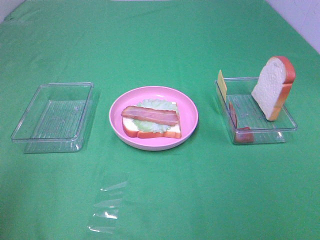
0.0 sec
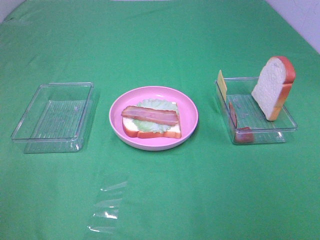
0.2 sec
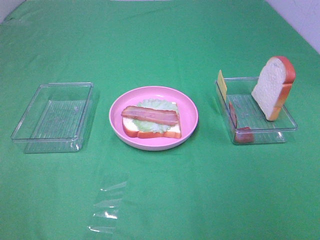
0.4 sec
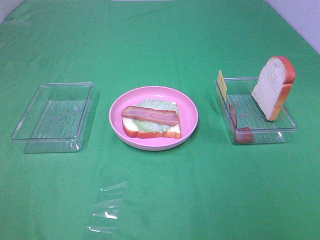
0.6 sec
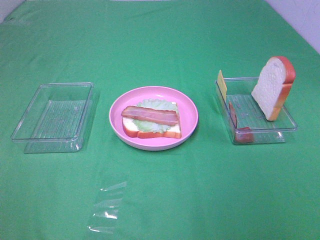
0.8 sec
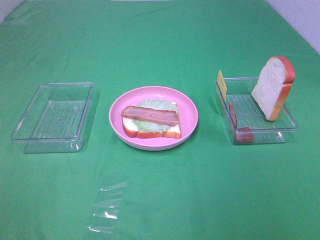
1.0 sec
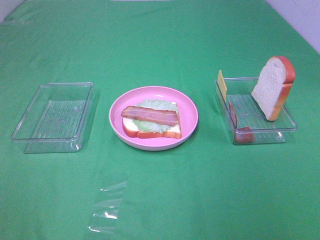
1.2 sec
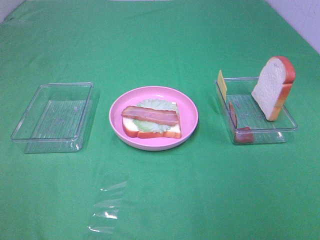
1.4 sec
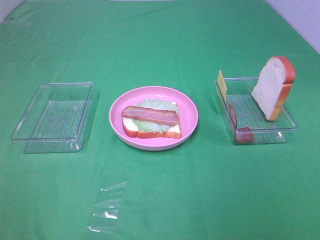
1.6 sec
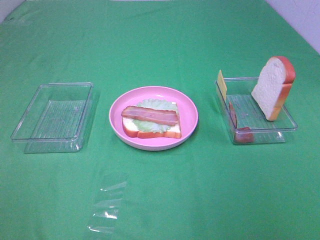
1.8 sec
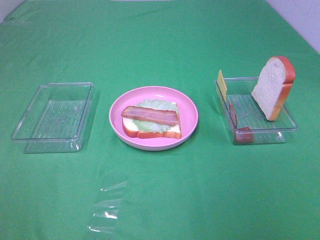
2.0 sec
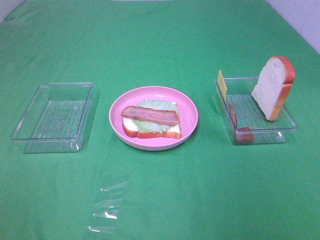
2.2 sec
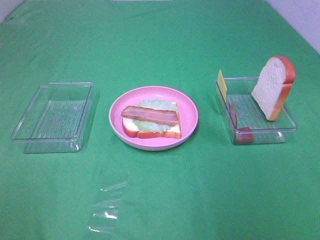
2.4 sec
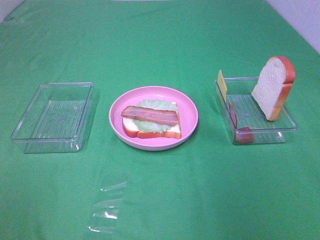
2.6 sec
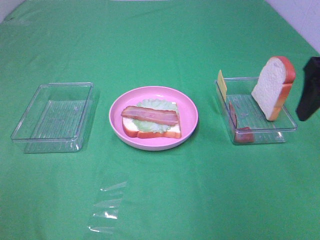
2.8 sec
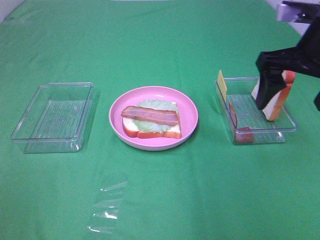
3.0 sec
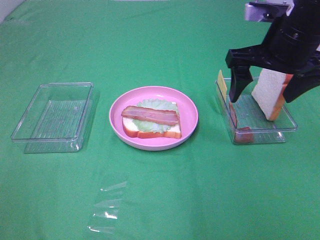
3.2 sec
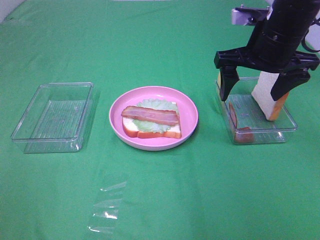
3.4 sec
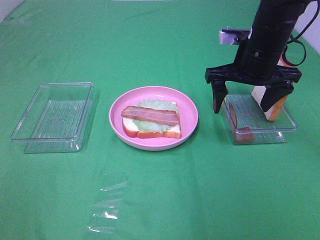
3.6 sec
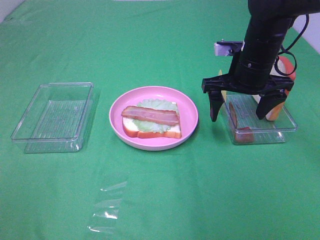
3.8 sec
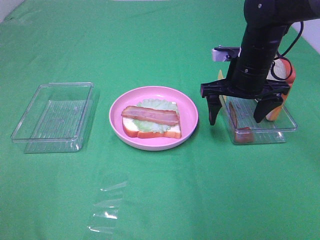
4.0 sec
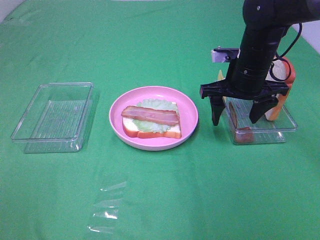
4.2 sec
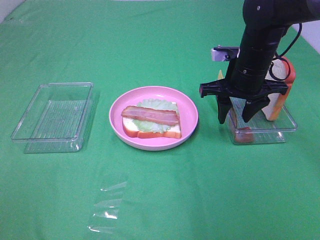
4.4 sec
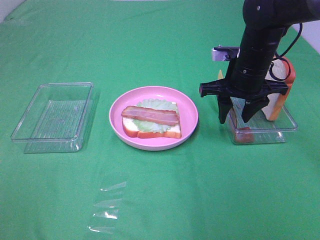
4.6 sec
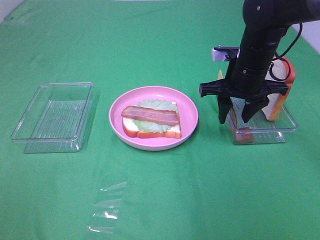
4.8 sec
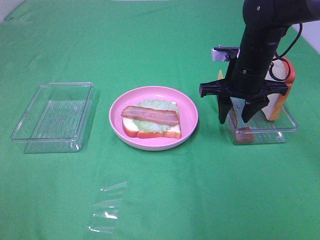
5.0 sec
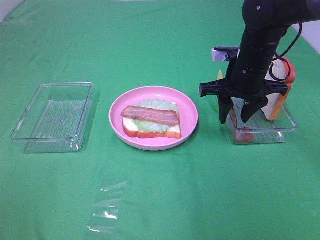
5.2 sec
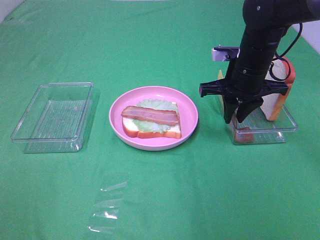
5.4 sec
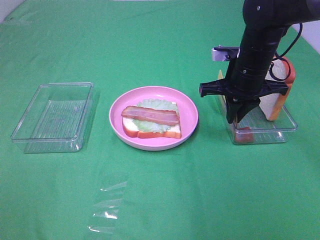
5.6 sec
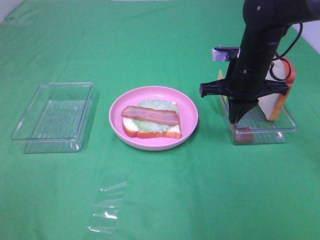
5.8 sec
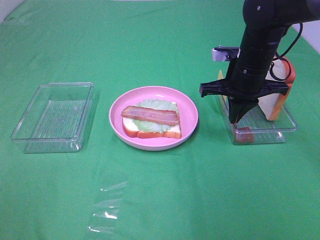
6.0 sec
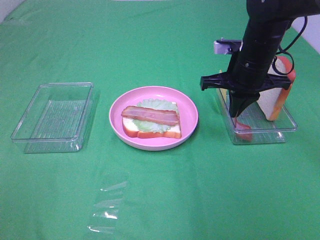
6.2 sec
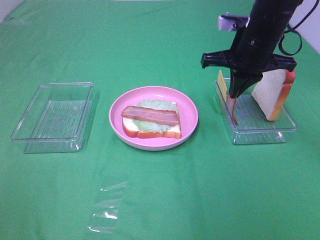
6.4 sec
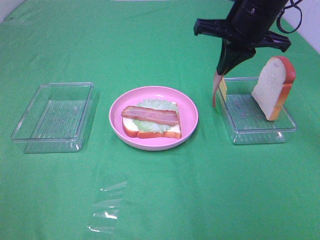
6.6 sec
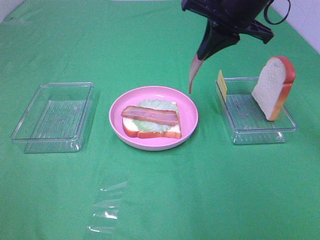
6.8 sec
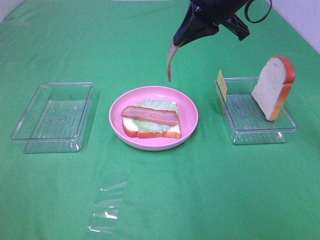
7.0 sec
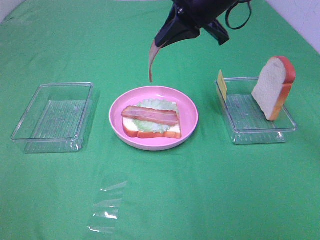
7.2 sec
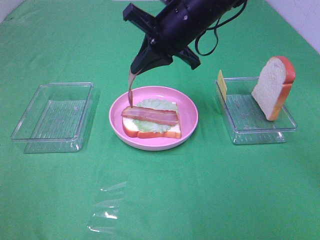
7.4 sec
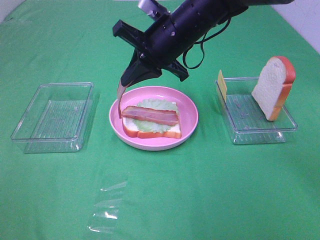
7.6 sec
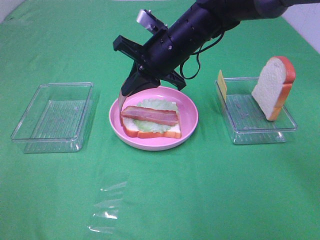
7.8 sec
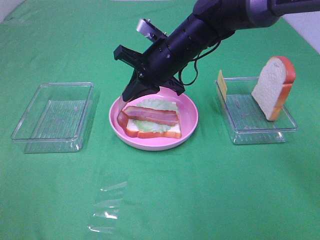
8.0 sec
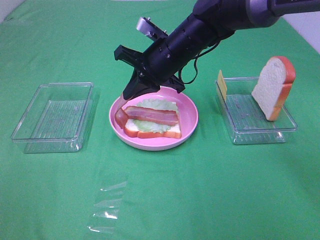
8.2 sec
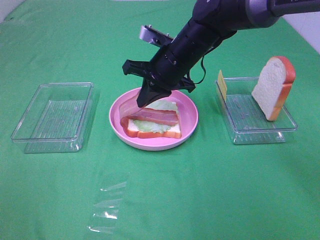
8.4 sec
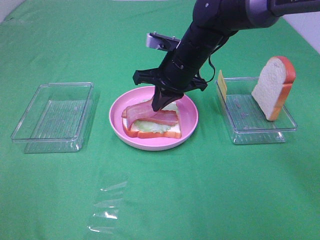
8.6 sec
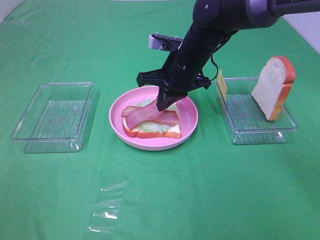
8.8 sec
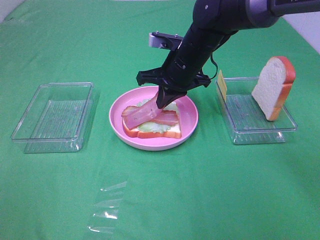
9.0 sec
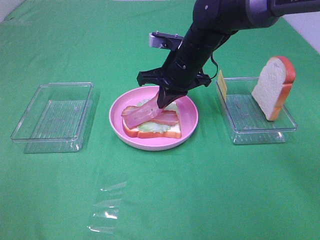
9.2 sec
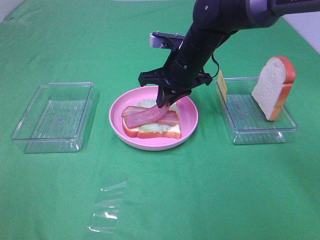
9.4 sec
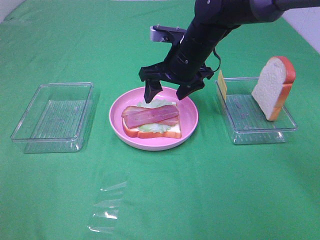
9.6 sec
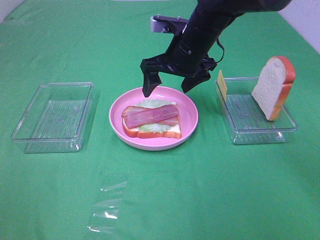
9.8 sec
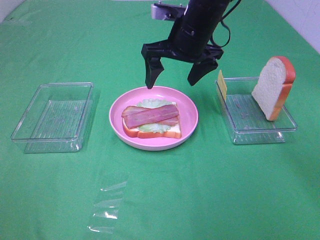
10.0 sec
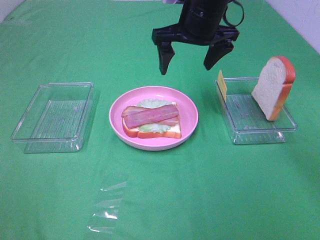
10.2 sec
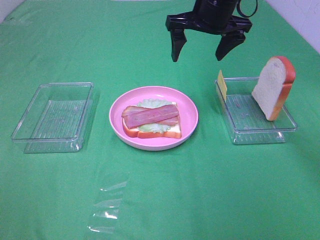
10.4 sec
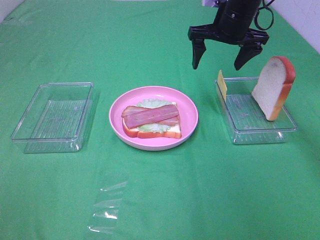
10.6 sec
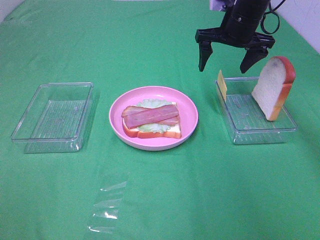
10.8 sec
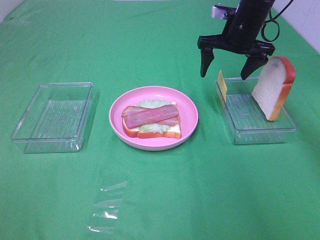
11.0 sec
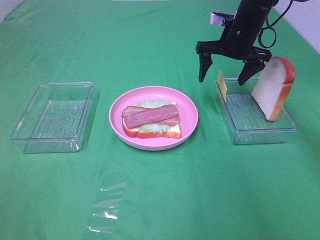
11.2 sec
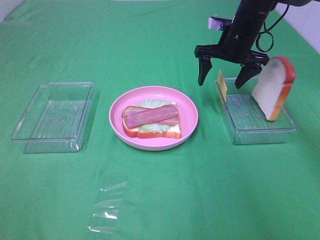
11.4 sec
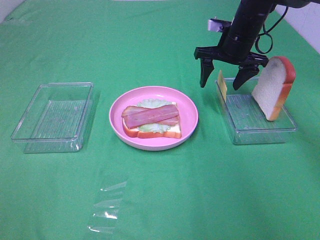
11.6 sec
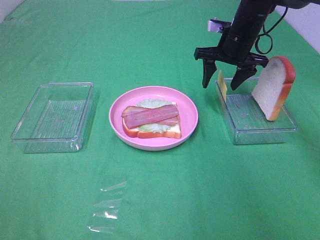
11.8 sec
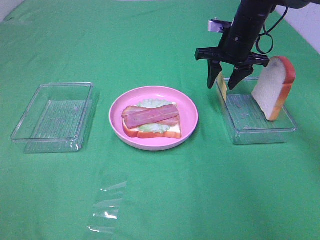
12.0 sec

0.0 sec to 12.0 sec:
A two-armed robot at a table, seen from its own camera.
Task of the whole recording: Make sandwiches.
Step, 0.0 sec to 5.8 sec: Right hand:grab the bacon.
Step, 6.0 sec to 9.6 sec: Right hand:place bacon on bacon.
1.6 sec to 3.0 sec: The right gripper heads forward, covering roughly 30 cm.
3.0 sec to 4.4 sec: The right gripper shifts some 15 cm downward and forward, and closes.
4.4 sec to 6.0 sec: The right gripper closes up.
6.0 sec to 7.6 sec: The right gripper shifts approximately 15 cm to the left.
7.6 sec to 9.0 sec: The right gripper shifts about 5 cm downward.
9.0 sec to 10.4 sec: The right gripper moves upward and to the right, about 10 cm, and opens its fingers.
10.4 sec to 12.0 sec: The right gripper goes roughly 10 cm downward and to the right, and closes up.

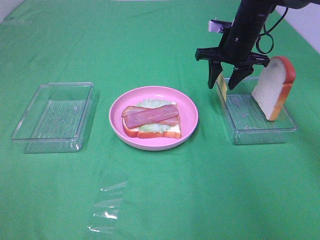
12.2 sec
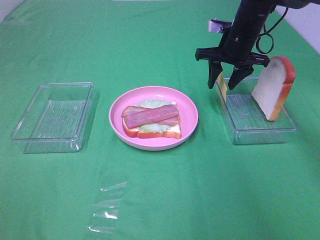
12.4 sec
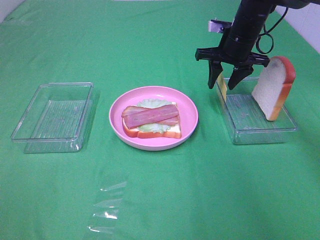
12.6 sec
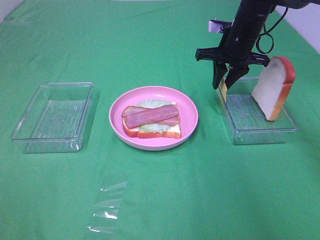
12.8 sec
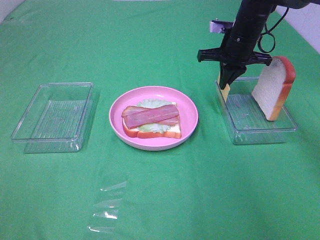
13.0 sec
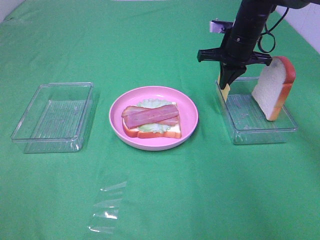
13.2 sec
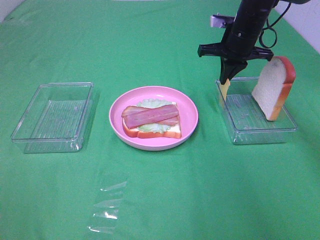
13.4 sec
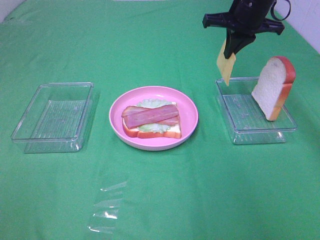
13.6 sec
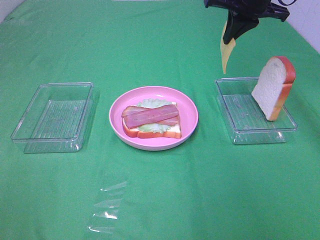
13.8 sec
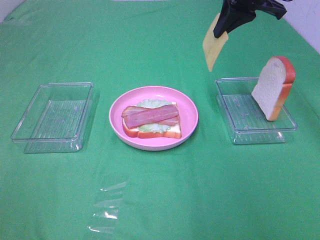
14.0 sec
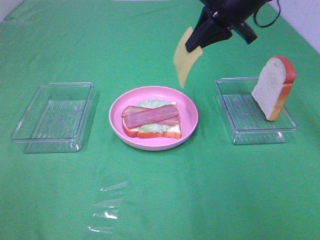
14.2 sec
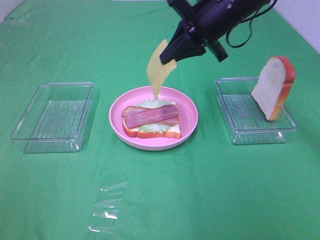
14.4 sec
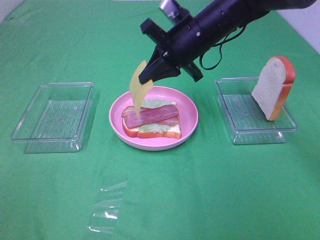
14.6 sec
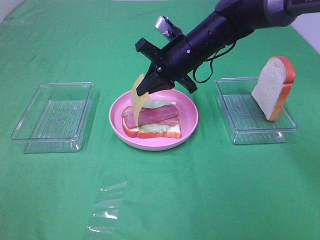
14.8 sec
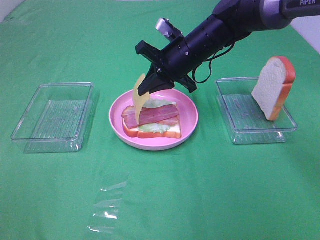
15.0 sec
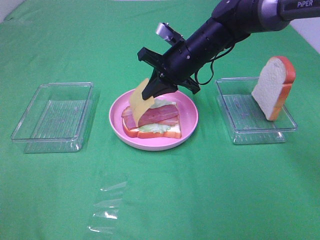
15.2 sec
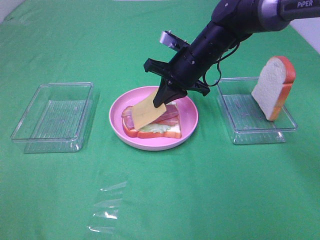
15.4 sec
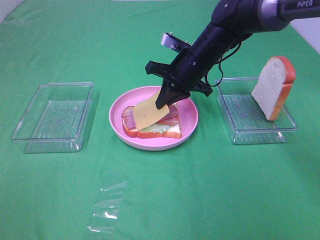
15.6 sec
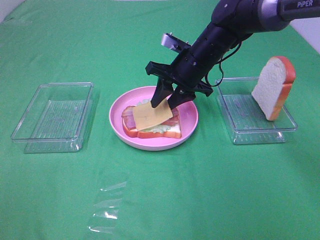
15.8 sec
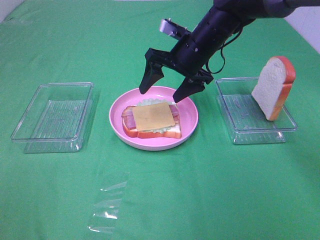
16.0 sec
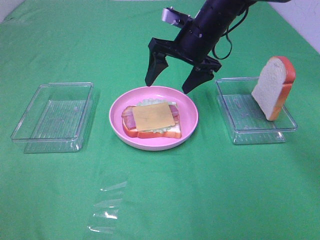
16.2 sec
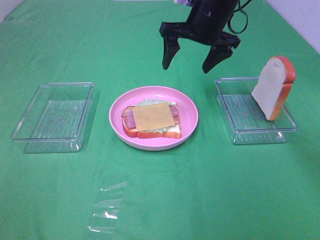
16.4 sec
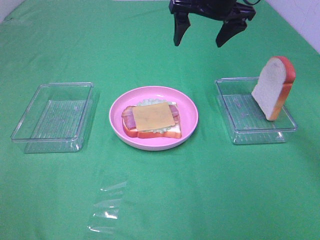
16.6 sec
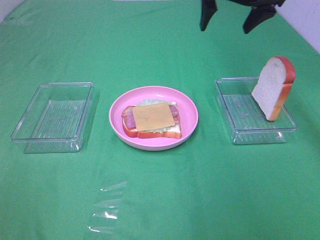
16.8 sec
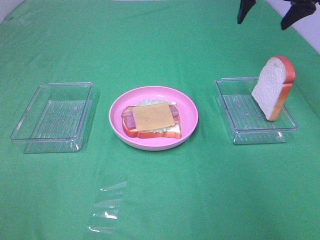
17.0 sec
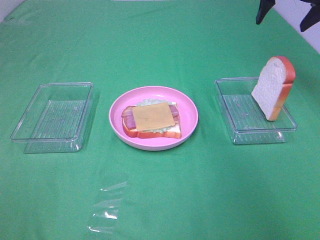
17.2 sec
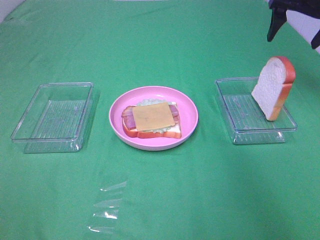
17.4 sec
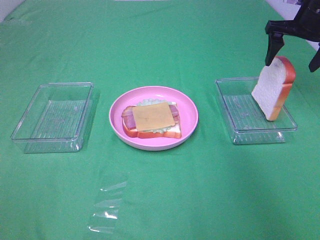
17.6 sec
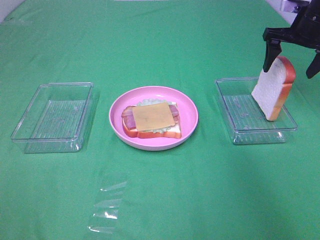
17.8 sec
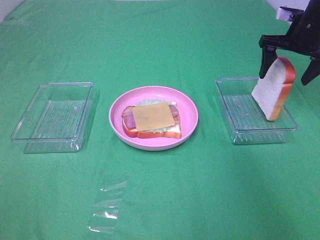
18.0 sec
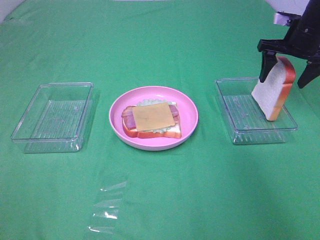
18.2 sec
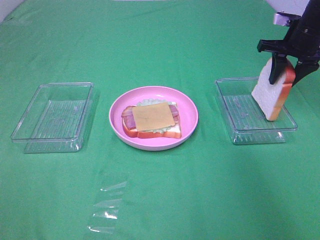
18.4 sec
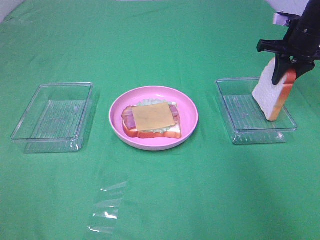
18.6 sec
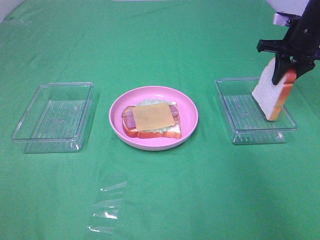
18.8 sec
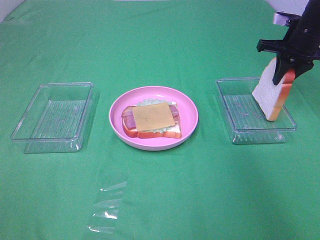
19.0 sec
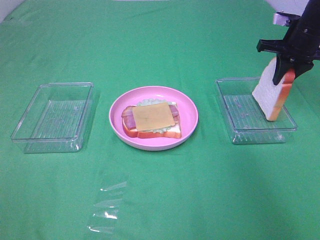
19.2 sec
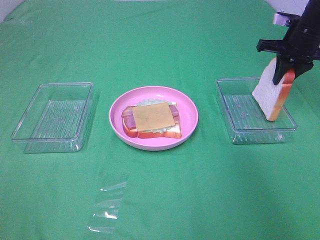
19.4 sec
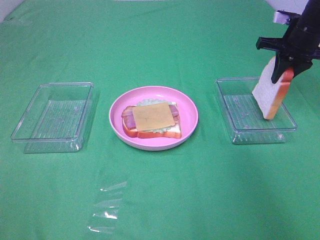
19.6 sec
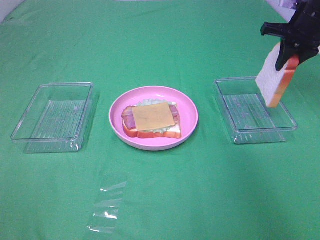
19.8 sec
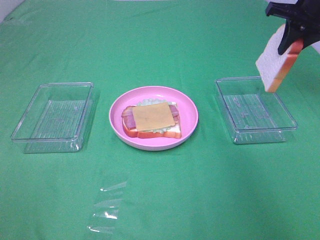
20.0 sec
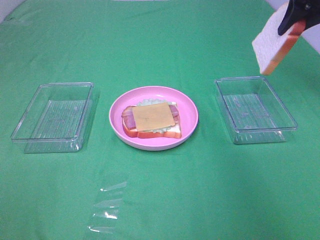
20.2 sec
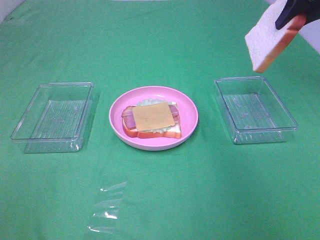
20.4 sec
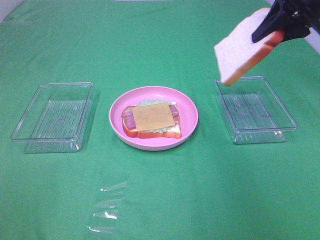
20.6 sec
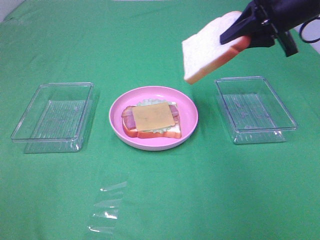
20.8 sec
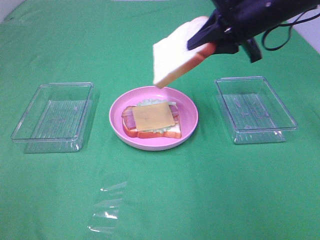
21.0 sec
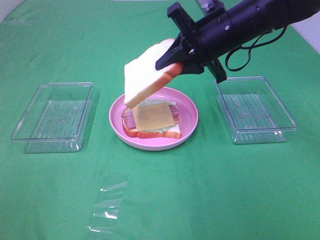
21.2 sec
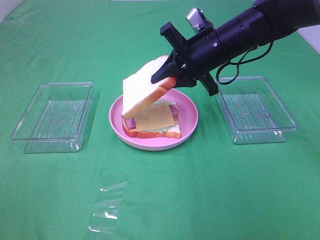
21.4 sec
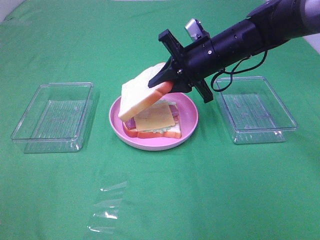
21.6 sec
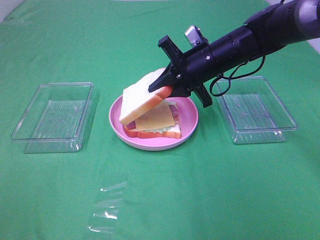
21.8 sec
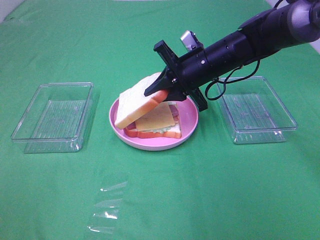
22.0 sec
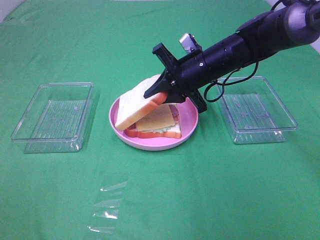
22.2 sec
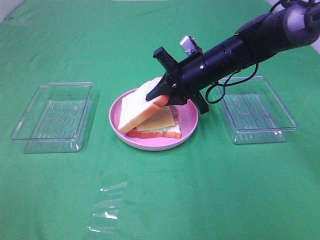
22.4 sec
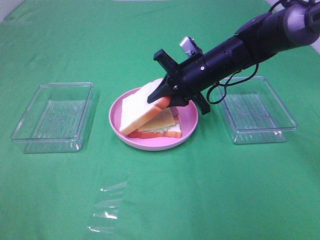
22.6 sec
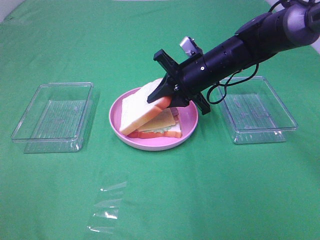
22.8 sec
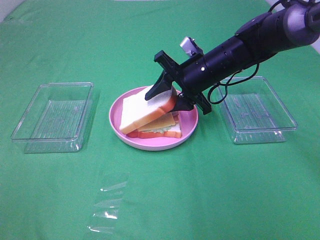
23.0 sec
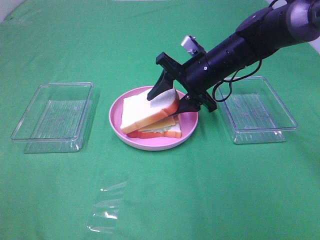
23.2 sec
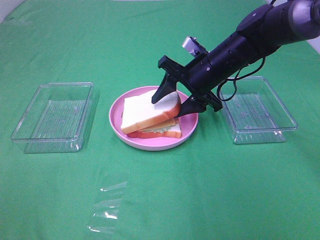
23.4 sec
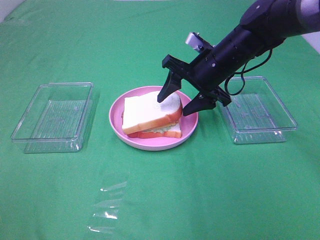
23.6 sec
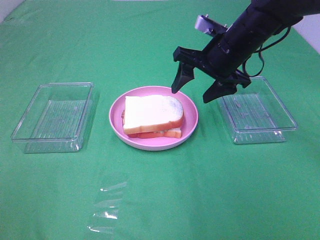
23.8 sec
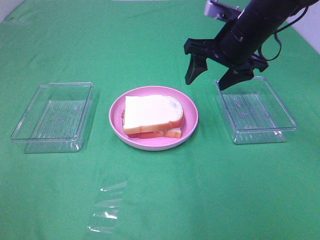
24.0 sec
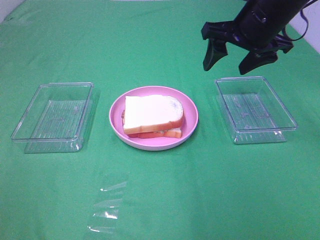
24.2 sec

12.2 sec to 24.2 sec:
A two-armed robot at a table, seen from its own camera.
Task of the whole recording: Make sandwiches.
Step, 13.2 sec to 15.8 sec: Right hand:place the cheese slice on top of the bacon.
Step, 16.0 sec to 18.6 sec: Right hand:grab the bread slice.
Step, 18.8 sec to 23.6 sec: Right hand:place the bread slice on the cheese slice.
12.2 sec to 13.8 sec: The right gripper goes approximately 10 cm upward, and closes up.
13.8 sec to 15.2 sec: The right gripper shifts about 15 cm downward and to the left.
15.2 sec to 16.6 sec: The right gripper travels upward by about 15 cm, and opens its fingers.
16.6 sec to 18.2 sec: The right gripper goes roughly 20 cm to the right and downward.
18.2 sec to 19.8 sec: The right gripper closes.
19.8 sec to 21.2 sec: The right gripper moves to the left and backward, about 20 cm.
21.2 sec to 22.6 sec: The right gripper goes approximately 10 cm downward.
22.6 sec to 24.2 sec: The right gripper shifts roughly 15 cm upward and to the right, and opens up.
